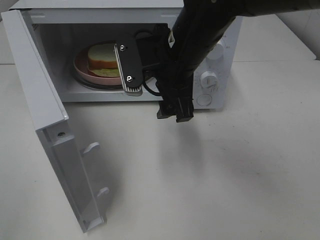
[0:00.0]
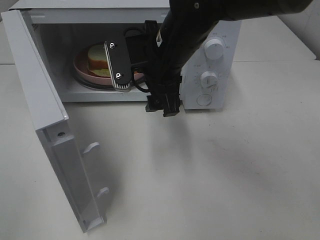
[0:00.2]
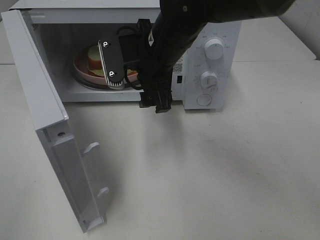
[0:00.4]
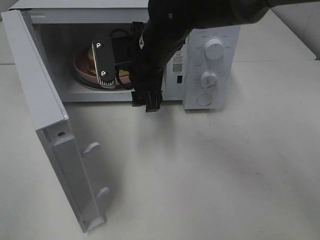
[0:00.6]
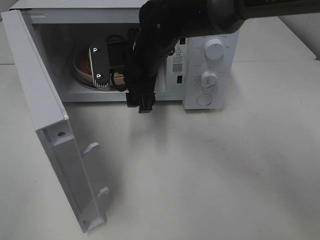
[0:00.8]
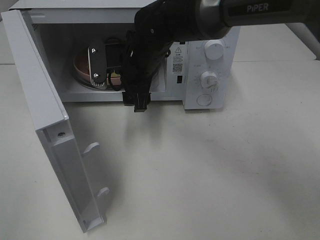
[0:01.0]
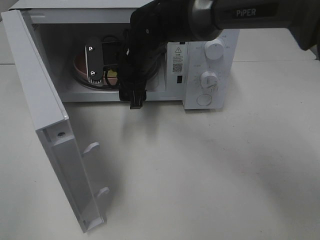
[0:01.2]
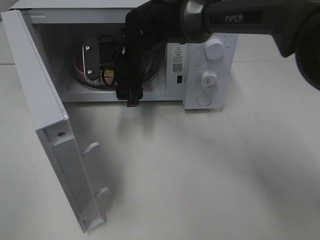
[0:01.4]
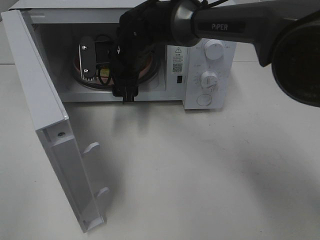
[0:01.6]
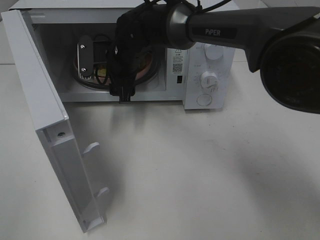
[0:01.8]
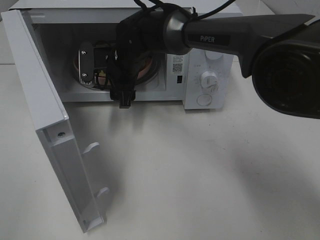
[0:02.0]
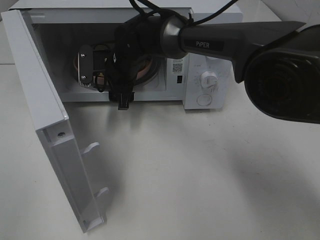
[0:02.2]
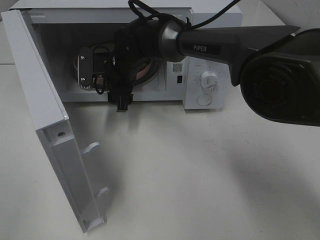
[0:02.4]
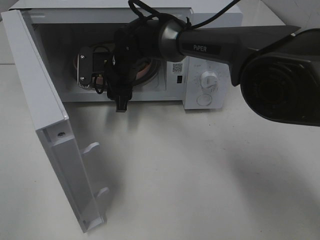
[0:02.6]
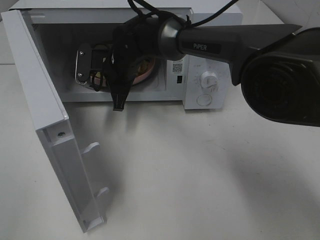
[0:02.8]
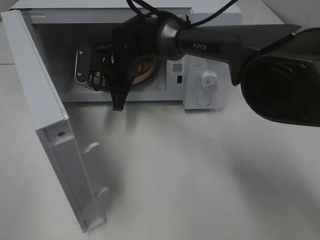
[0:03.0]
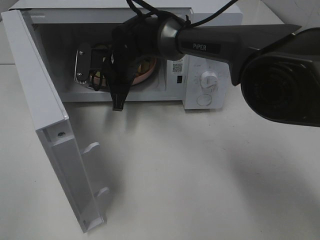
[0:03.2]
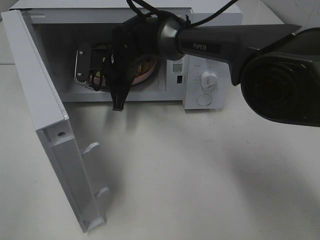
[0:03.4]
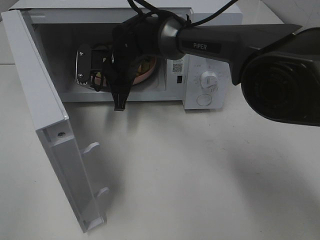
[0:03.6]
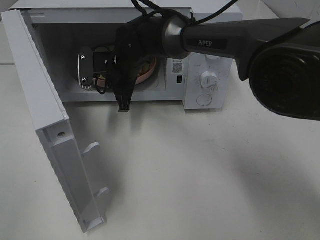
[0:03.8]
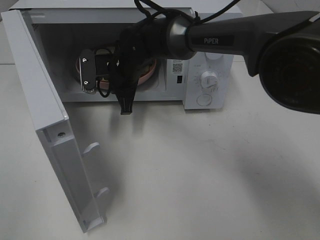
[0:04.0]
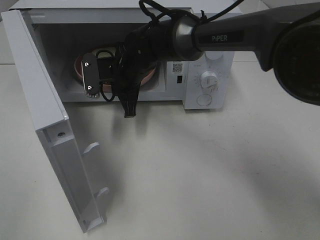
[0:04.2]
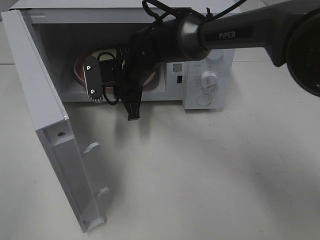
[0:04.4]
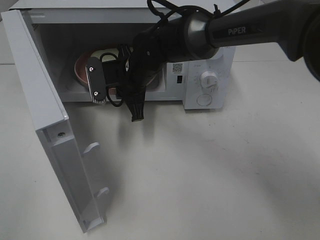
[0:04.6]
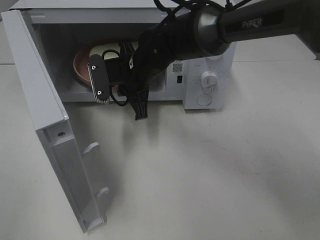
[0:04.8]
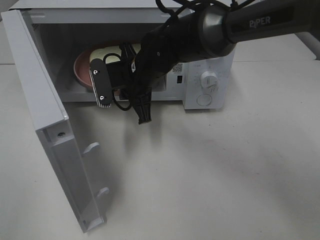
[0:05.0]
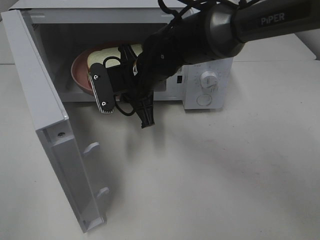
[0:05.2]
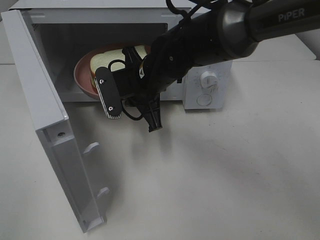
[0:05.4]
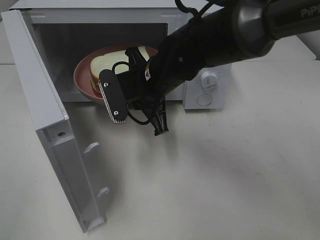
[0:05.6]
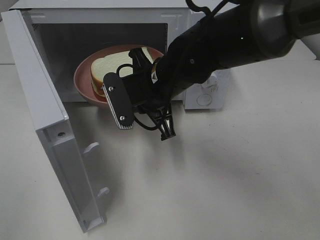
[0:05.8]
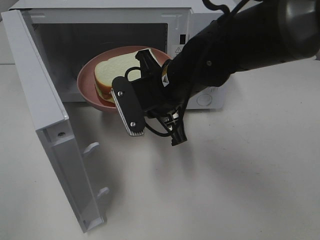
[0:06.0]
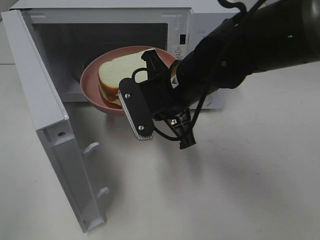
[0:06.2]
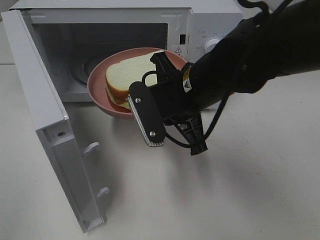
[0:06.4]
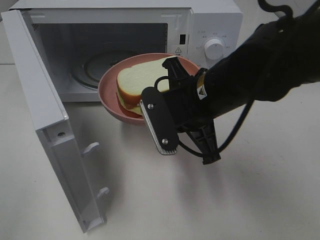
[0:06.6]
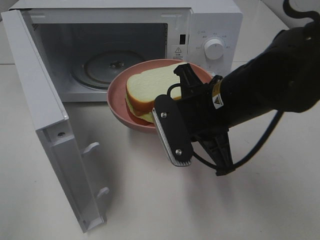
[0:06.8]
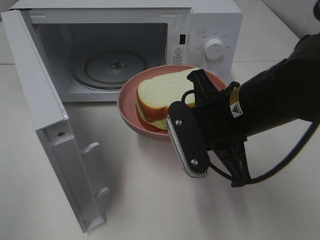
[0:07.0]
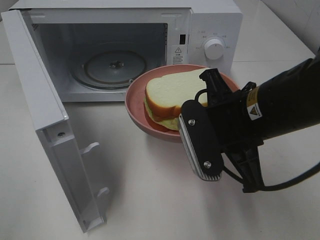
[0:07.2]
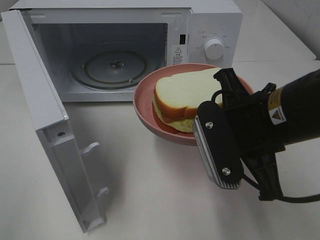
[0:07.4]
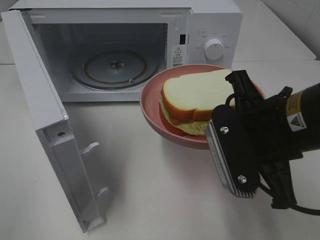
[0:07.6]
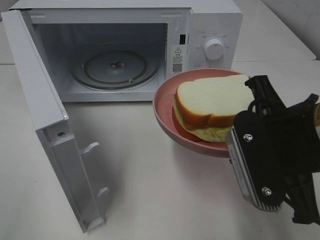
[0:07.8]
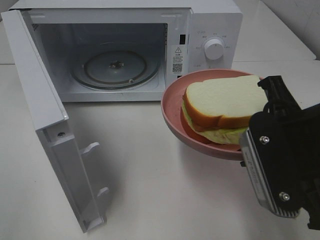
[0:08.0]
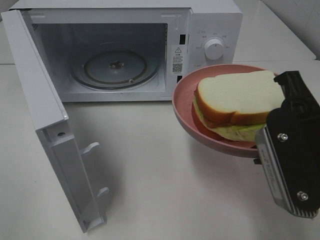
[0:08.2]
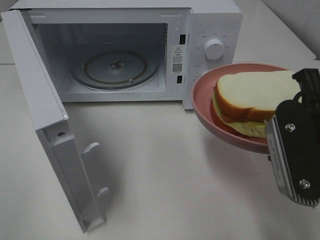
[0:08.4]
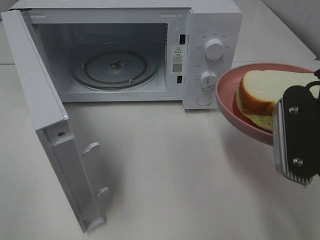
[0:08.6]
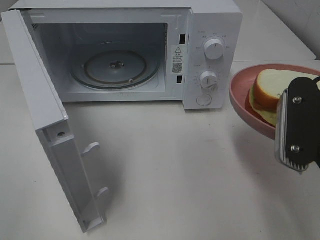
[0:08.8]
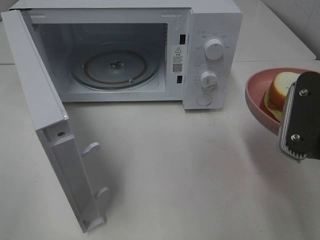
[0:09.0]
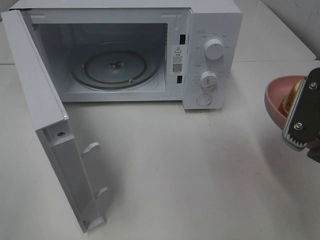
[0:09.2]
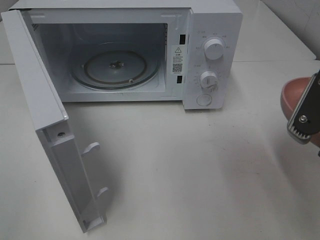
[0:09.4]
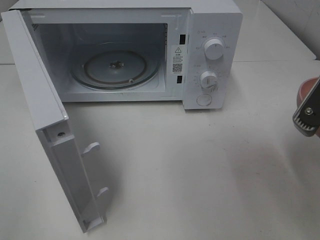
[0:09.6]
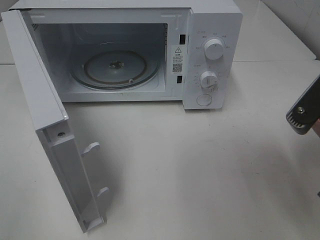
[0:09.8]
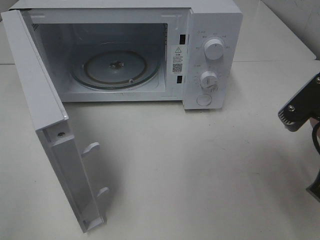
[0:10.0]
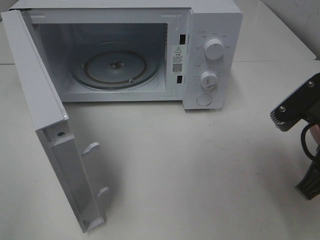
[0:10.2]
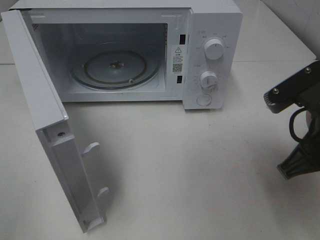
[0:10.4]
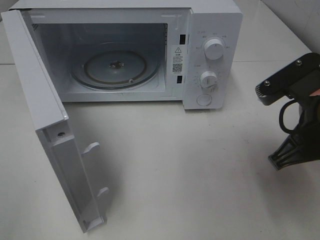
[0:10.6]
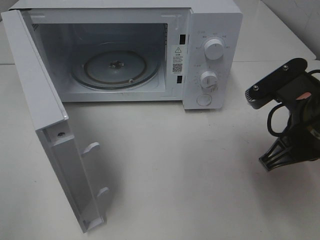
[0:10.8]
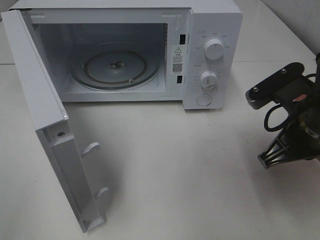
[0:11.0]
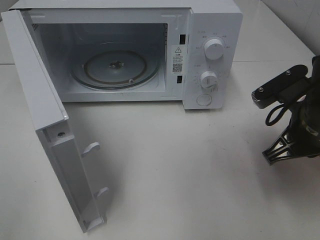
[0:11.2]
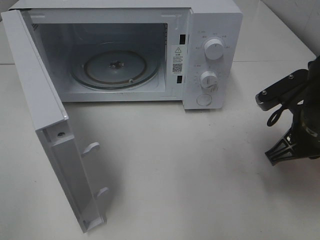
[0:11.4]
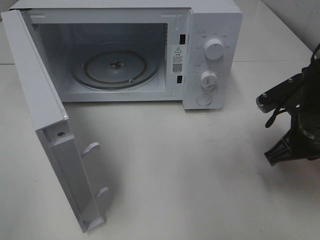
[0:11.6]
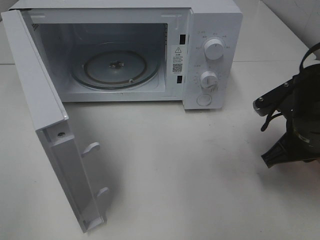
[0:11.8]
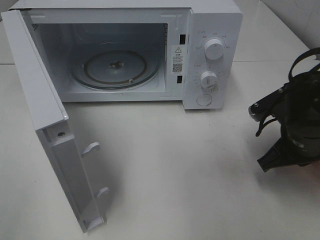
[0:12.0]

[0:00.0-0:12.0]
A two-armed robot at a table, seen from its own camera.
Task of the whole recording: Heat Sandwich.
Step, 0:00.0 to 0:03.2: Right hand: grab the plate with the sandwich.
0:00.0 to 0:01.6: The right gripper is displaced forward, to the left and downward by roughly 15 cm.
0:01.6 to 0:03.0: The right gripper closes its fingers.
0:03.0 to 0:04.4: There are only small adjustments of the grippers.
0:04.4 to 0:06.0: The right gripper shifts about 15 cm backward and to the right.
0:06.0 to 0:07.6: The right gripper moves backward and to the right, approximately 15 cm.
0:07.6 to 0:09.0: The right gripper shifts about 5 cm to the right.
0:10.4 to 0:12.0: The right gripper is displaced downward and forward by approximately 10 cm.

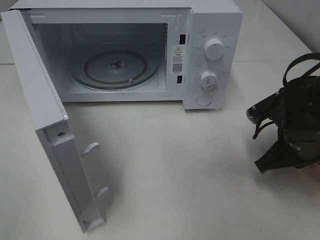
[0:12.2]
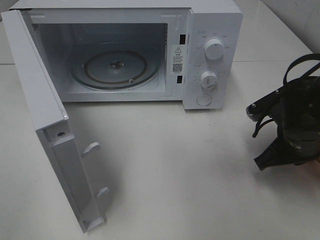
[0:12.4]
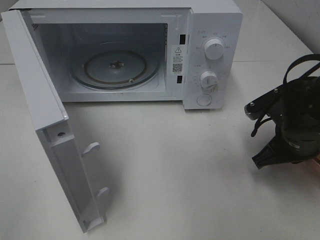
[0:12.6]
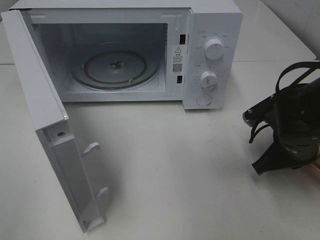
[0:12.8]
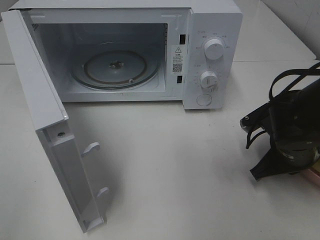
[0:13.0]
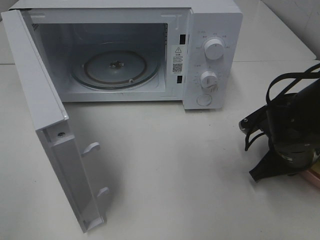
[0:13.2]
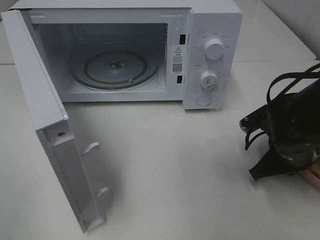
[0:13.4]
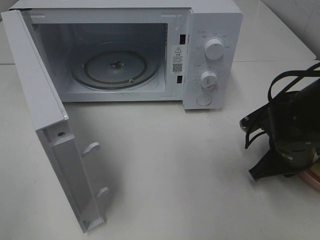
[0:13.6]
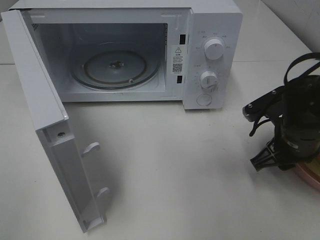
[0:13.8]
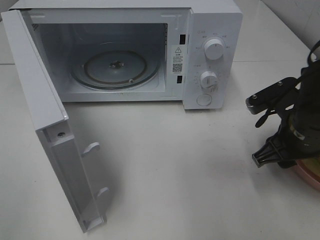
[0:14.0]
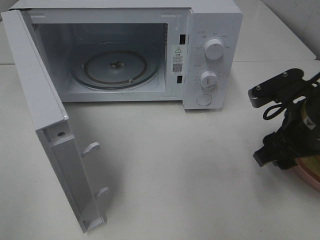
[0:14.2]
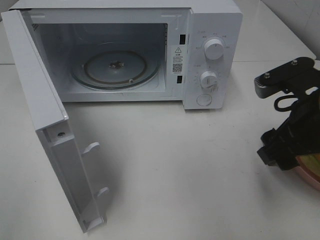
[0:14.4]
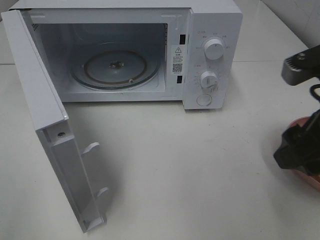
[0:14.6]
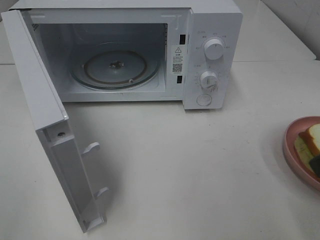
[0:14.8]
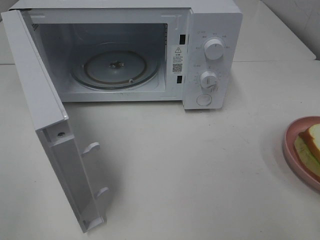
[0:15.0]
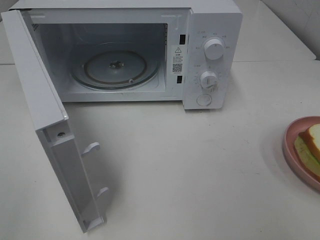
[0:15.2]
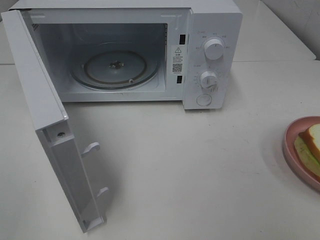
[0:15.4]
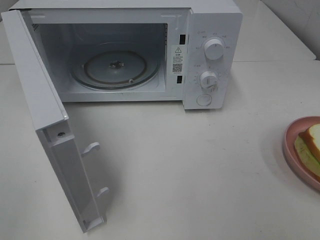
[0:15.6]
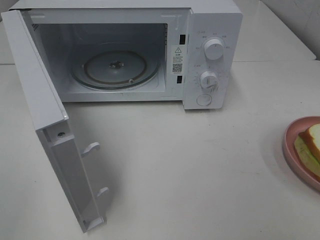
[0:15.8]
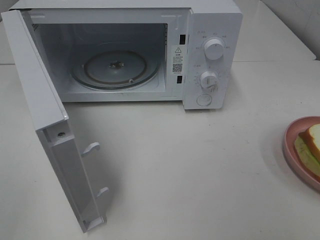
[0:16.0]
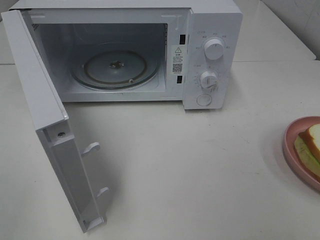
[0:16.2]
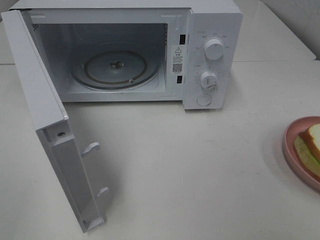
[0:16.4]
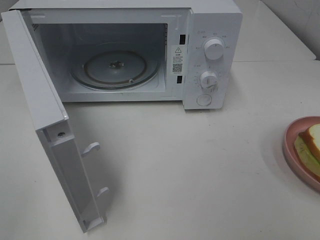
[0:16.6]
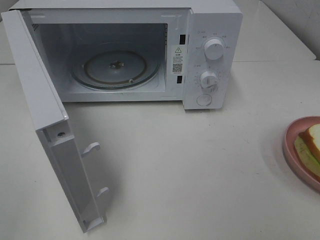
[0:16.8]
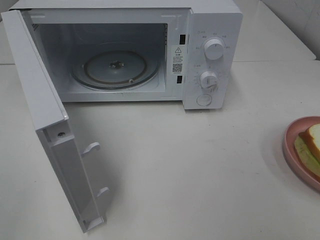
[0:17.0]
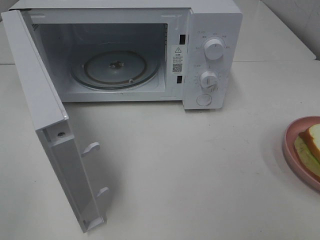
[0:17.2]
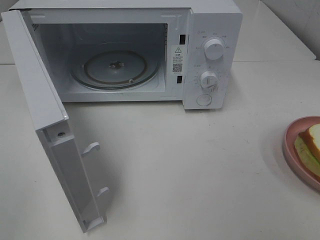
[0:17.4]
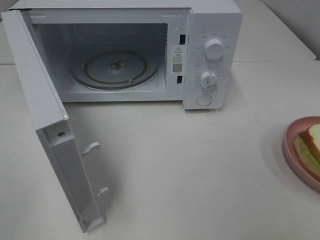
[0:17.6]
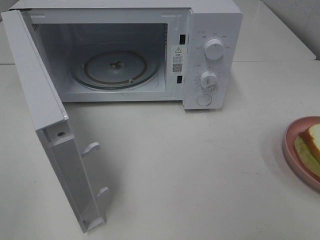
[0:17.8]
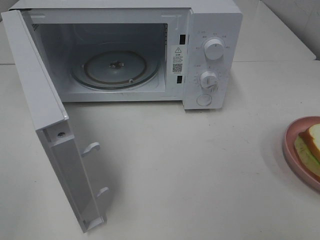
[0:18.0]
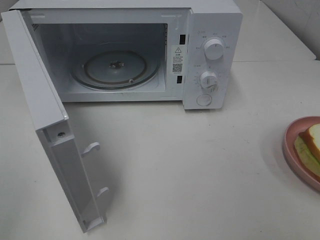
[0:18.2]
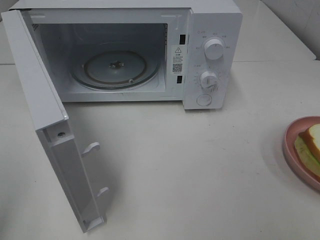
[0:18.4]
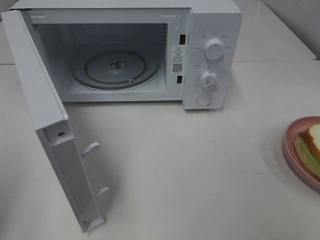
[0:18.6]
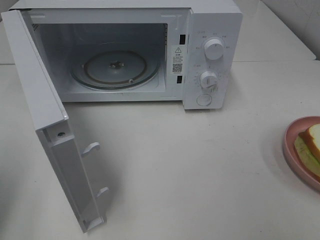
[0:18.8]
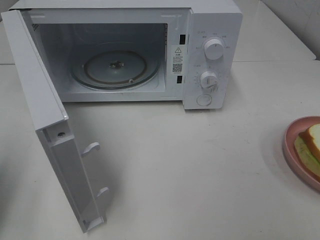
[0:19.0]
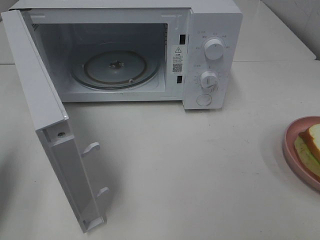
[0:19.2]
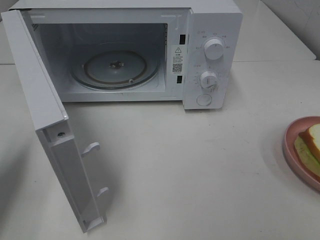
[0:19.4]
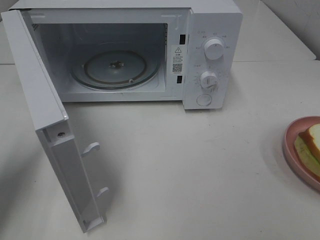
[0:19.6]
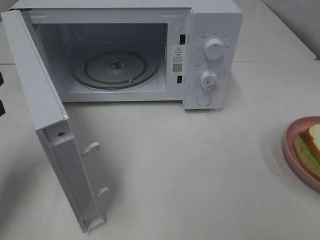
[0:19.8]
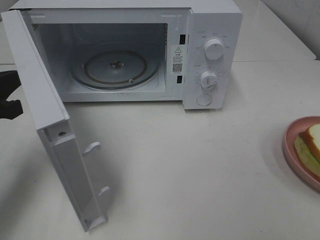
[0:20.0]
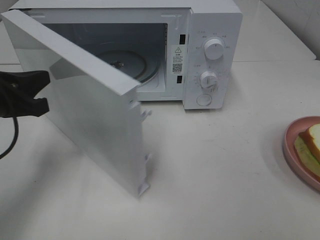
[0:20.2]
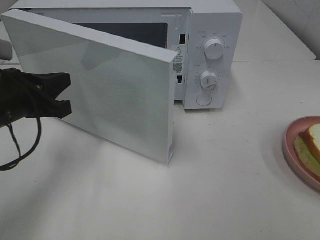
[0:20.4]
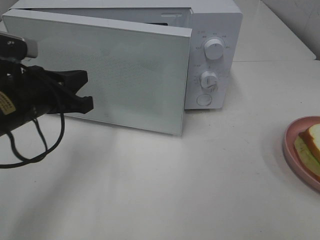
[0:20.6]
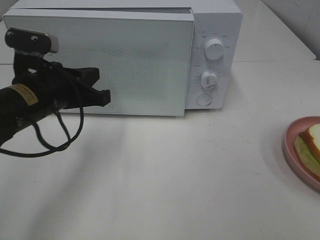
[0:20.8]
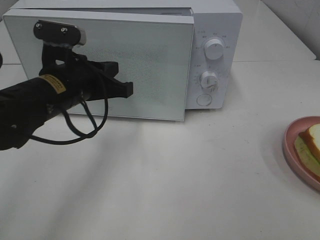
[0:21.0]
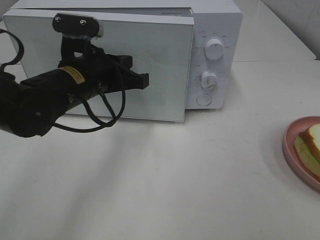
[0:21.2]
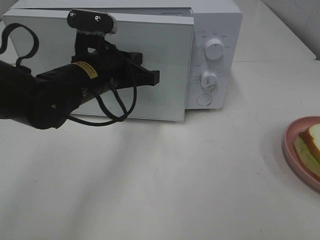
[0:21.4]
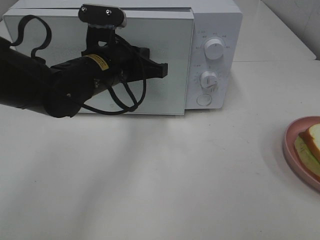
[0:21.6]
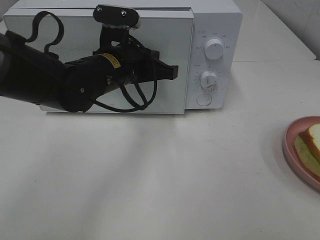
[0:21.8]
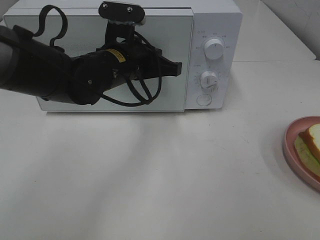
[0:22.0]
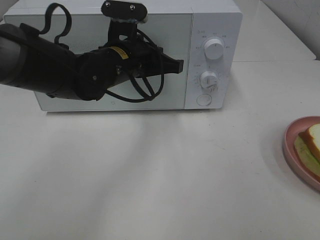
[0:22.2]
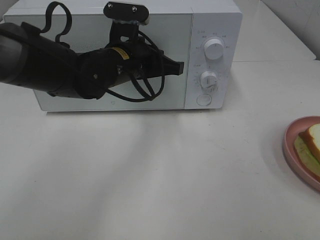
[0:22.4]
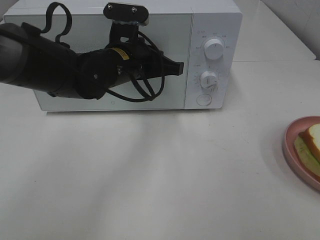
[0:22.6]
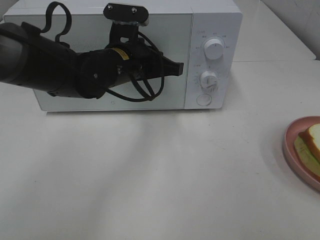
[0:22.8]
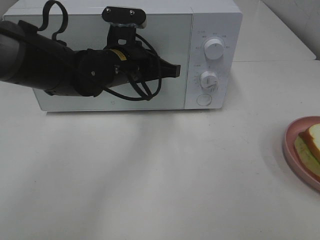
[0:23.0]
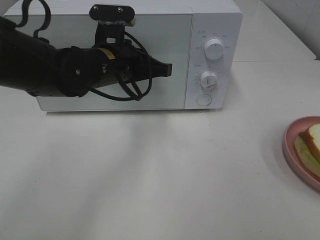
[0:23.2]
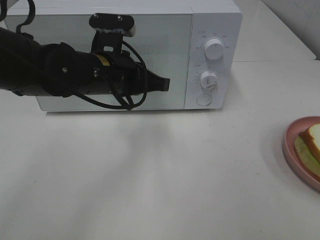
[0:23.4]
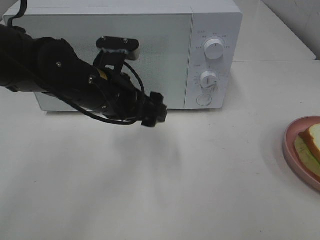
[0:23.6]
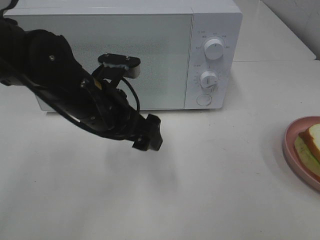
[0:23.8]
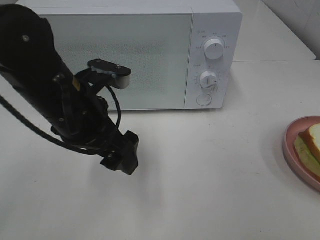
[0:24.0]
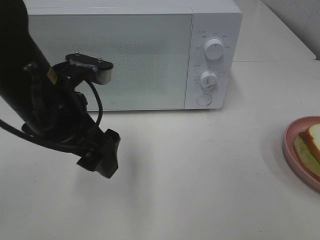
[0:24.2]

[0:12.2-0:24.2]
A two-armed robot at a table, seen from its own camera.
Task of the whole recording: Heat Sandwich.
Step, 0:12.2 to 0:14.2: Right hand: place the plate on the table.
Step, 0:14.4 to 0:23.2: Left hand: close the microwave door.
0:12.2 to 0:13.8: The right gripper opens its fingers.
0:13.8 to 0:15.2: The right gripper heads backward and upward, covering about 25 cm.
0:18.2 to 0:19.8: The left gripper heads forward and downward, covering approximately 20 cm, and closes its fingers.
0:19.8 to 0:21.2: The left gripper travels to the right and forward by some 20 cm.
0:21.2 to 0:22.6: The left gripper moves some 5 cm.
0:22.6 to 0:24.2: The left gripper heads backward and to the left, covering roughly 15 cm, and opens.
